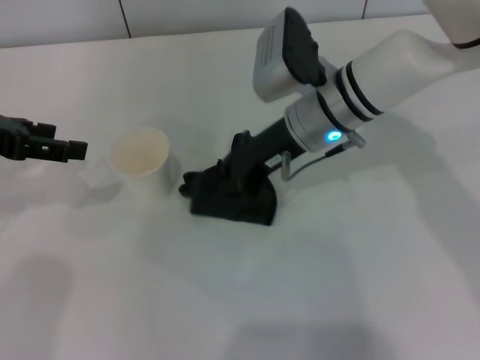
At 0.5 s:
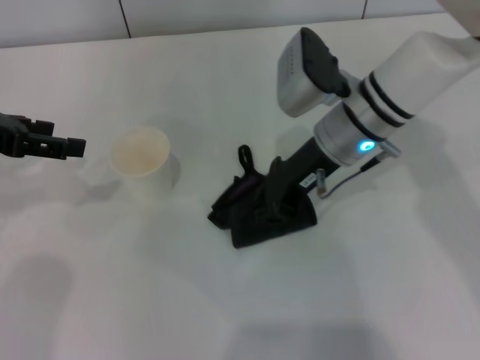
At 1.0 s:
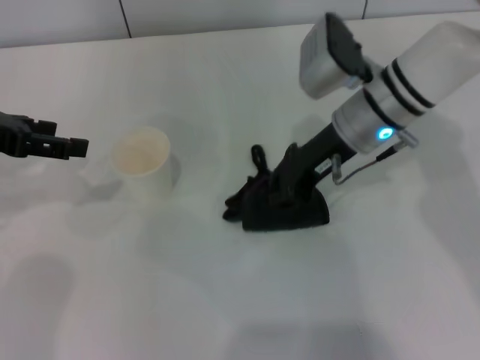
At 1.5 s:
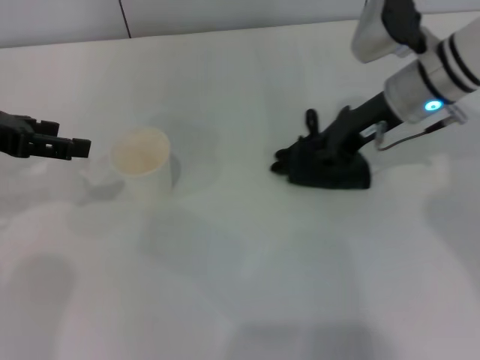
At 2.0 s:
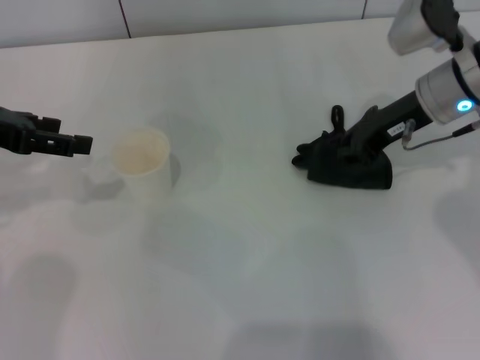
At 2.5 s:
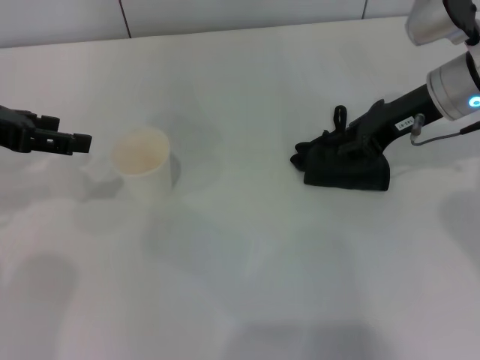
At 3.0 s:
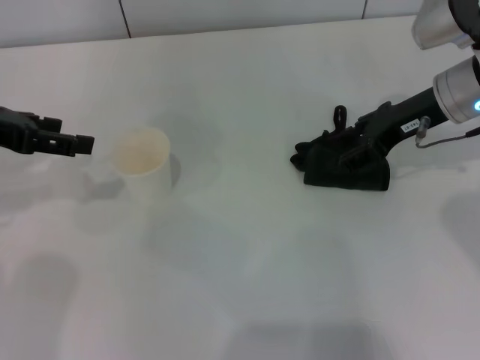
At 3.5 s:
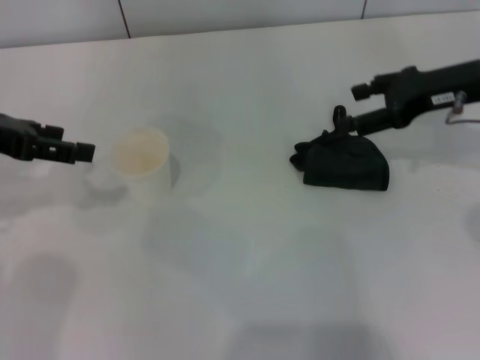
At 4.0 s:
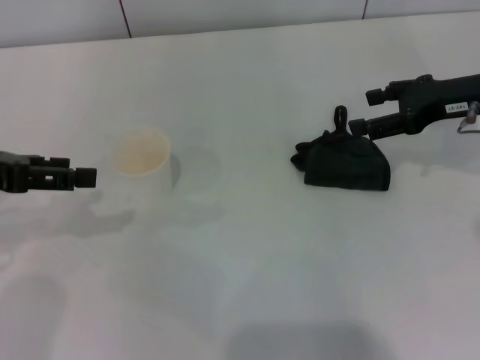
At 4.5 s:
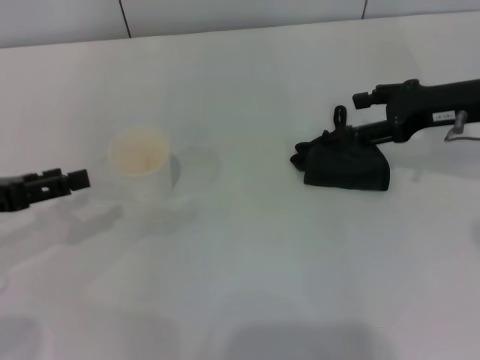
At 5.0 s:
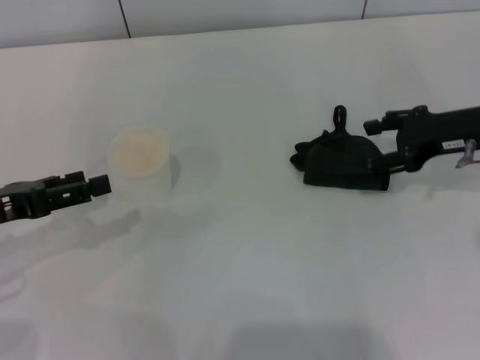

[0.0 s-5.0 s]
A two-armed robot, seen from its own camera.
Step, 2.0 to 3.5 s: Place the rag on the table with the right gripper.
0.0 to 2.5 s: The right gripper is displaced to the right by some 15 cm.
2.5 to 5.0 s: The left gripper goes about 10 cm downward and backward, while the right gripper goes approximately 10 cm to the right and backward, and opens up.

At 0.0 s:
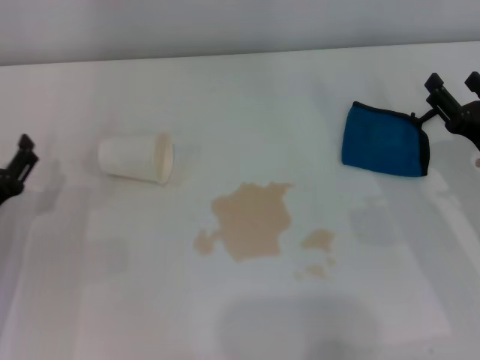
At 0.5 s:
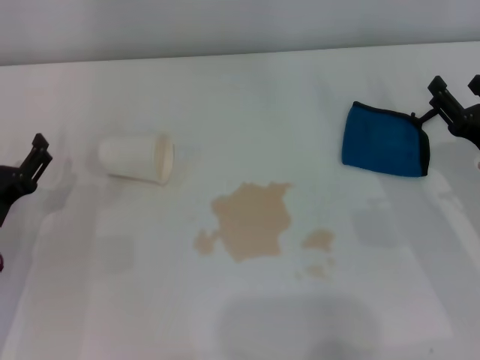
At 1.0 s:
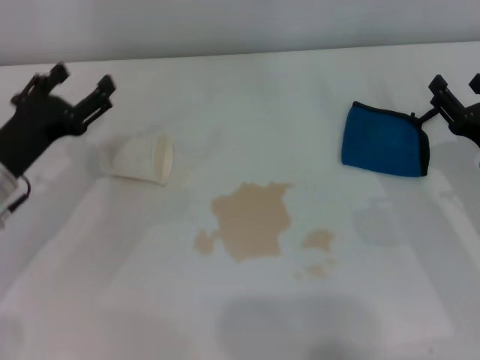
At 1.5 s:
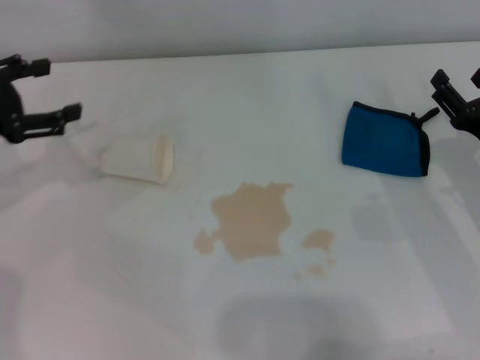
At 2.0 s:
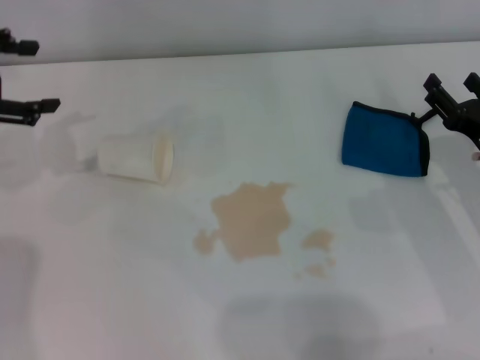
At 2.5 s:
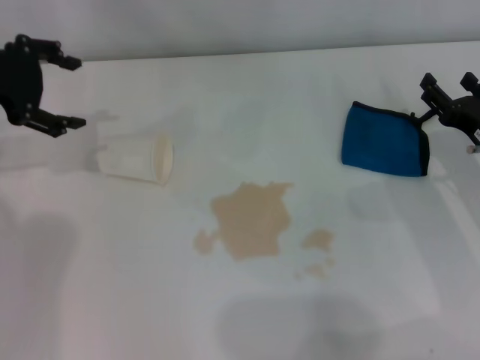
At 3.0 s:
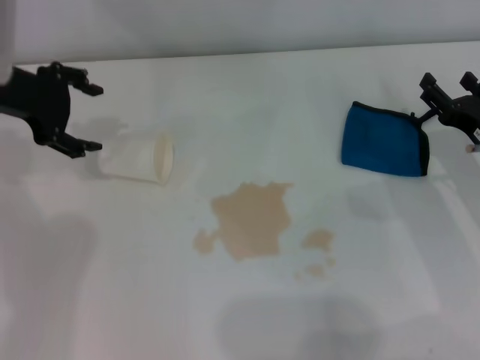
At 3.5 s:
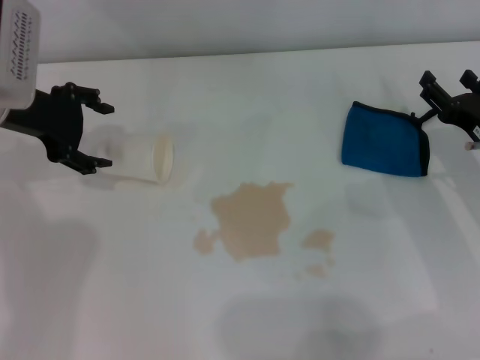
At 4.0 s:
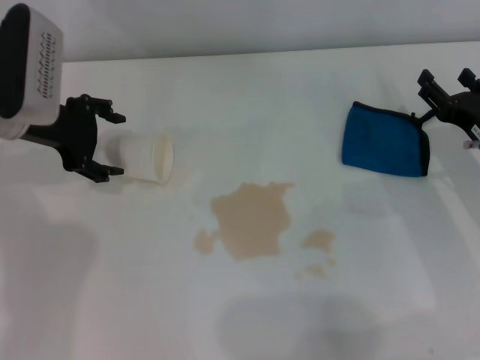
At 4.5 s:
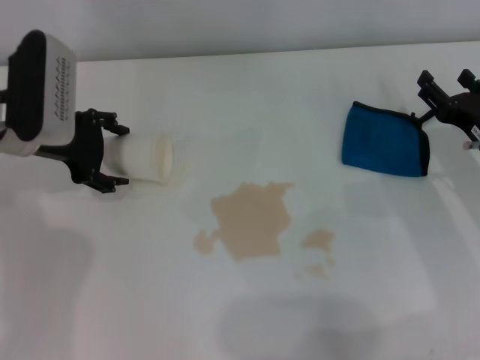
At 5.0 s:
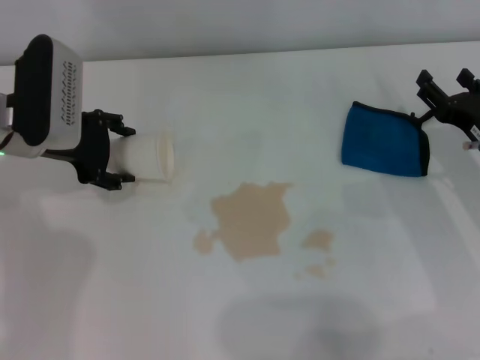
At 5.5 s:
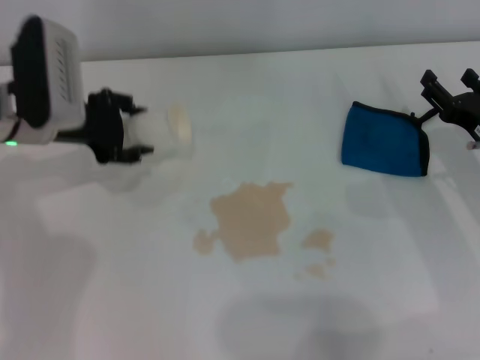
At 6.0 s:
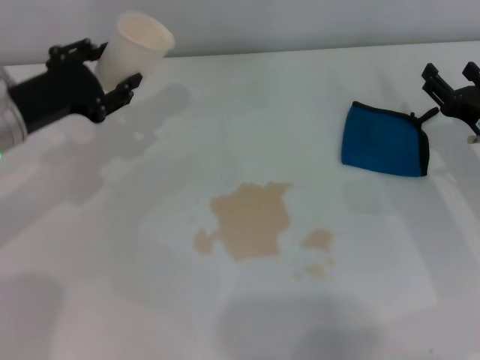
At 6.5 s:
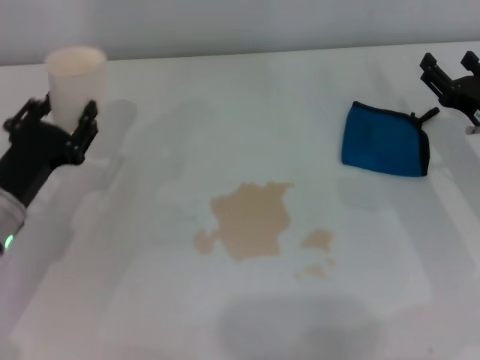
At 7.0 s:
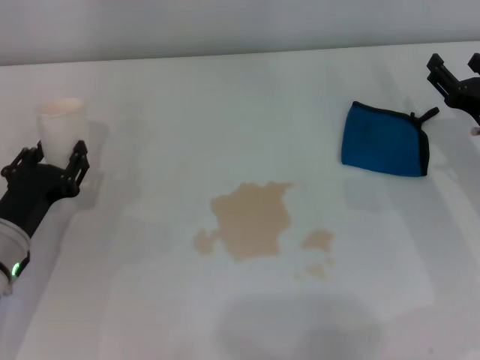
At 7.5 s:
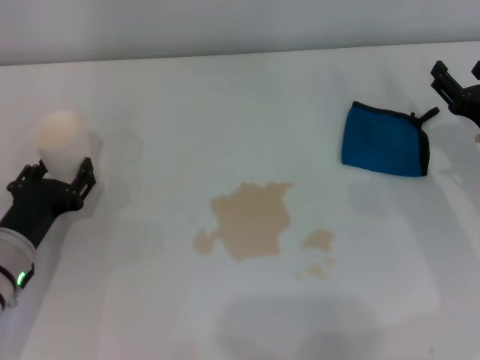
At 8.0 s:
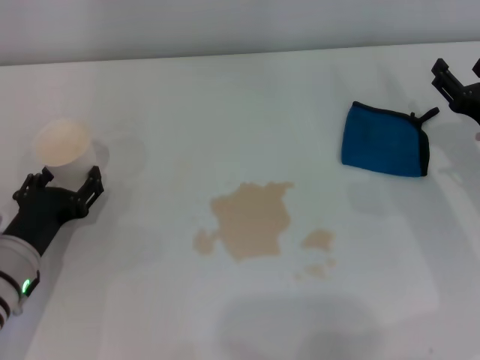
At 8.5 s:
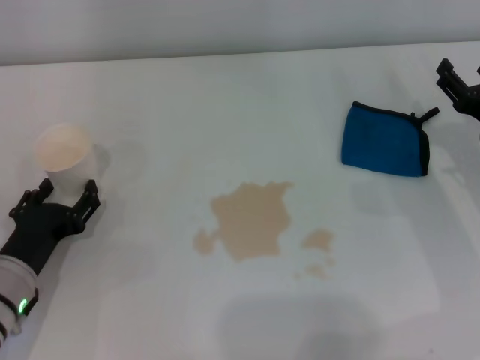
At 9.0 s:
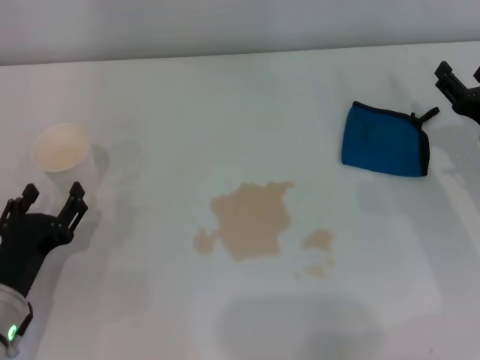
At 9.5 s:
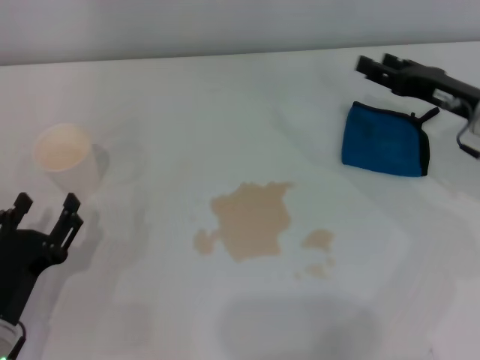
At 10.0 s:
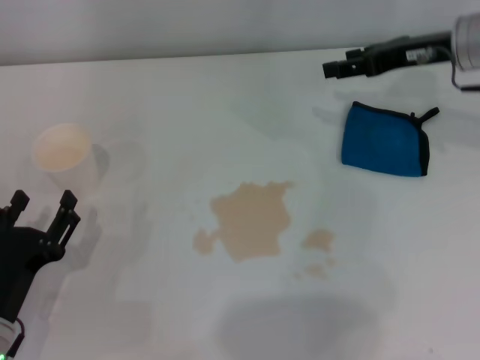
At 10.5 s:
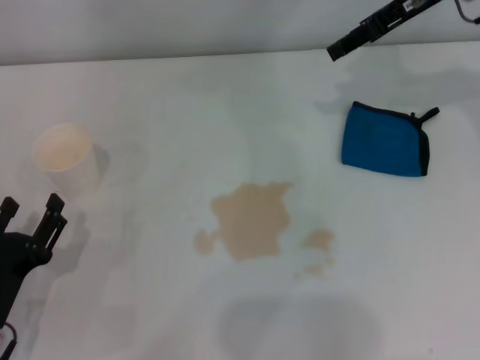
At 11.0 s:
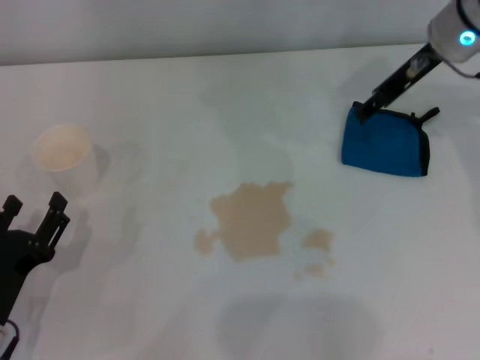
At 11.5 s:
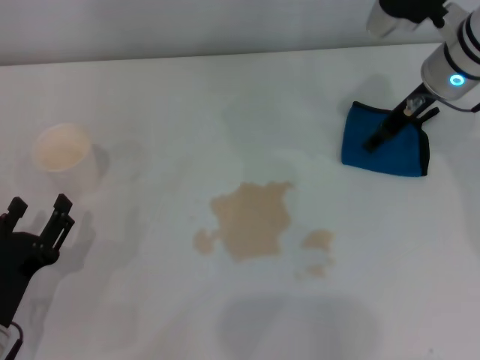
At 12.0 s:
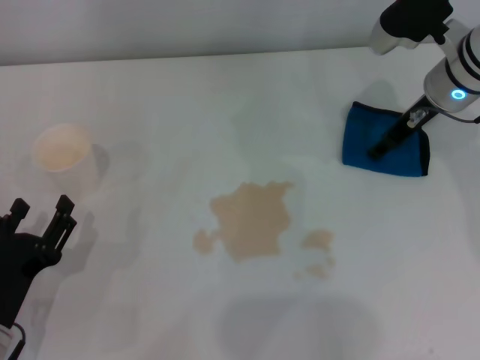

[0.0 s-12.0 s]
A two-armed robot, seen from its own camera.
Step, 0.0 to 5.0 s: Grasp the paper cup with the left gripper.
Step, 5.5 to 8.0 s: Stand the paper cup upright with the left gripper.
0.0 to 2.0 s: The left gripper goes some 20 cm upward and forward.
2.0 to 4.0 s: The left gripper heads to the right and downward, covering approximately 10 cm.
4.0 to 6.0 s: The left gripper ends up about 5 cm from where it was, and closes.
6.0 to 8.0 s: The left gripper shifts roughly 15 cm downward and backward, and opens its fingers.
8.0 to 10.0 s: The left gripper heads backward, covering about 10 cm; the right gripper heads upward and forward, covering approximately 15 cm.
10.0 to 12.0 s: The right gripper goes upward and returns, roughly 5 cm each way.

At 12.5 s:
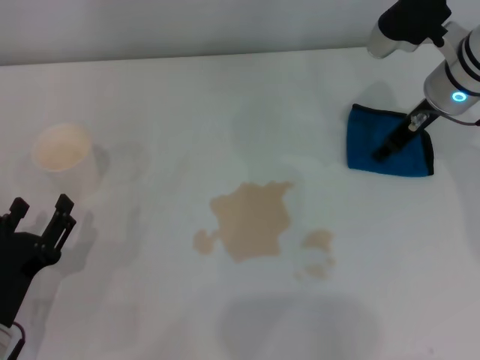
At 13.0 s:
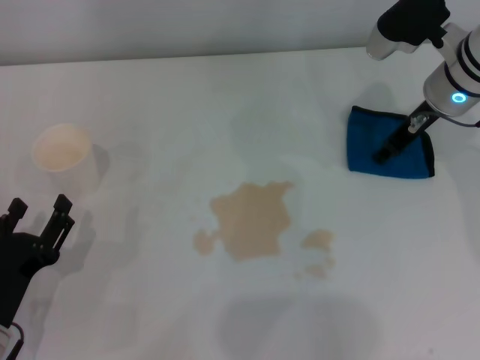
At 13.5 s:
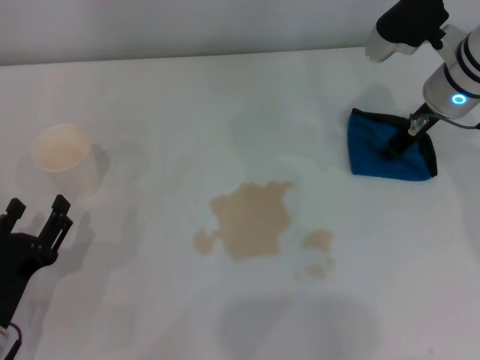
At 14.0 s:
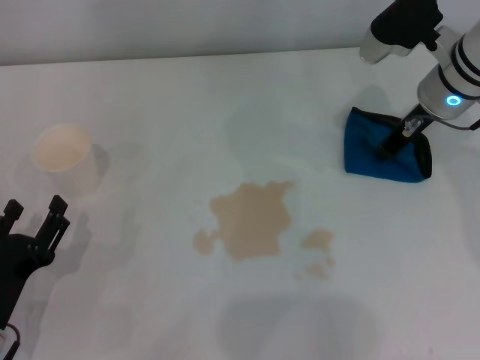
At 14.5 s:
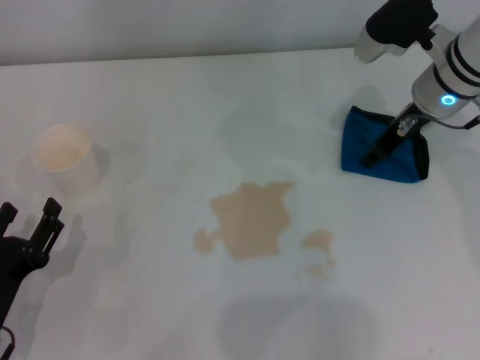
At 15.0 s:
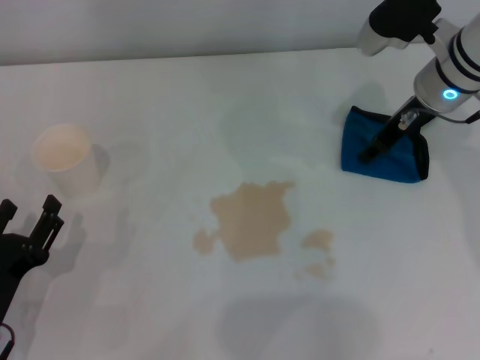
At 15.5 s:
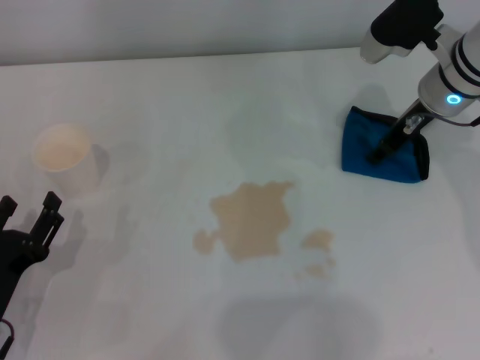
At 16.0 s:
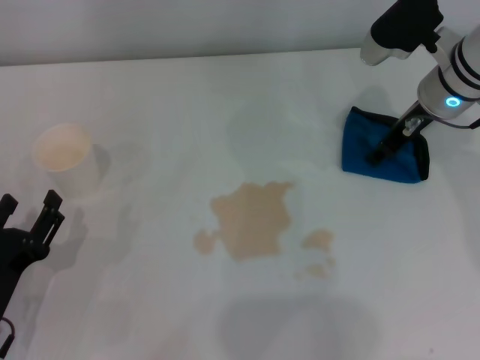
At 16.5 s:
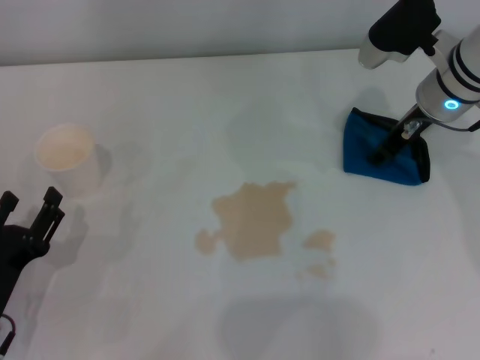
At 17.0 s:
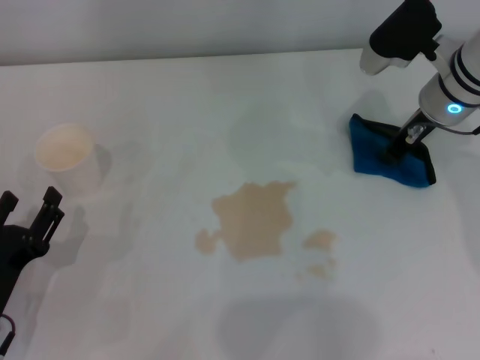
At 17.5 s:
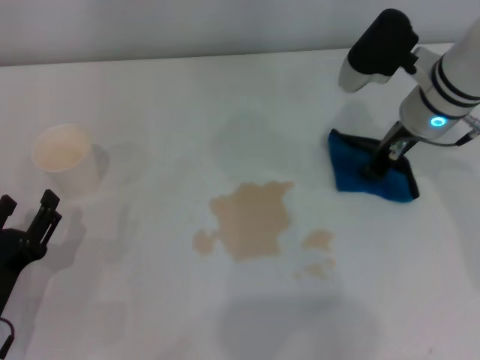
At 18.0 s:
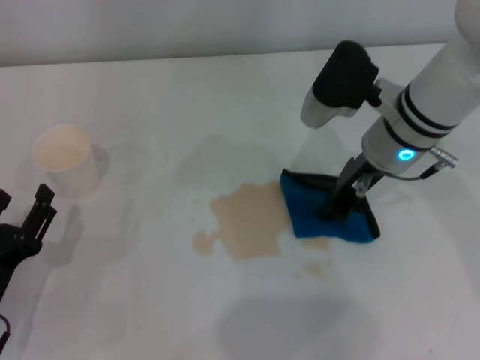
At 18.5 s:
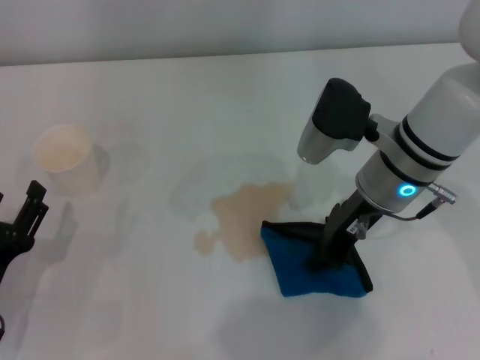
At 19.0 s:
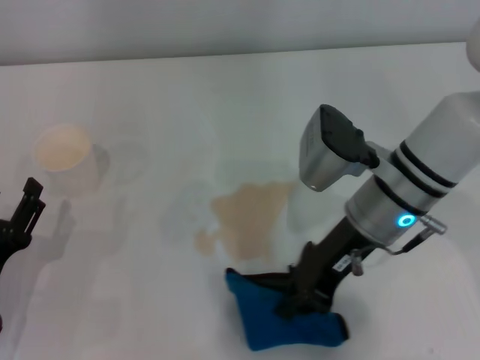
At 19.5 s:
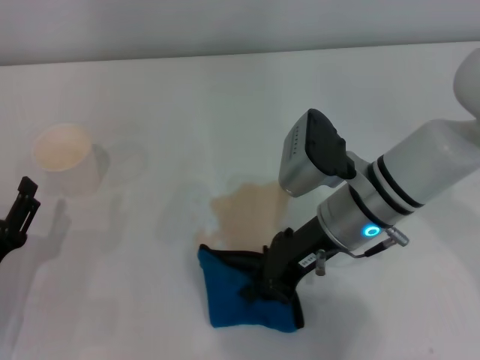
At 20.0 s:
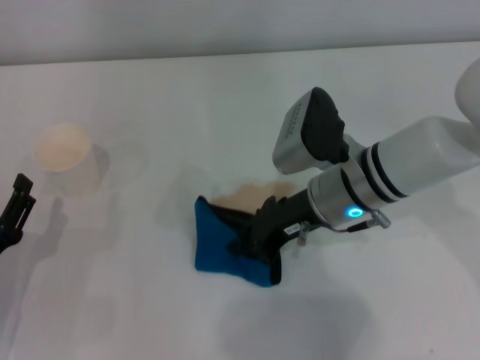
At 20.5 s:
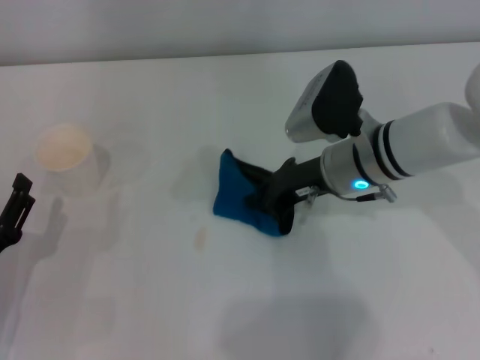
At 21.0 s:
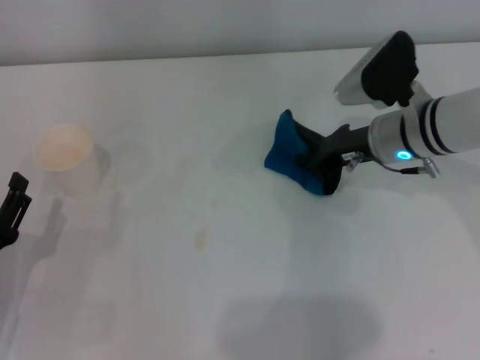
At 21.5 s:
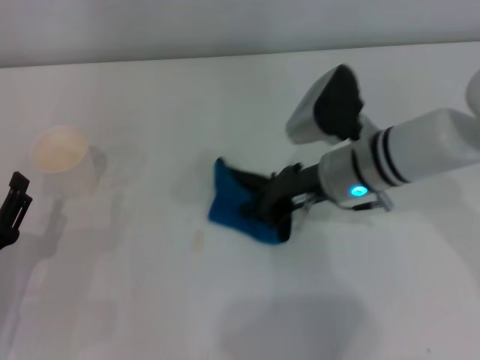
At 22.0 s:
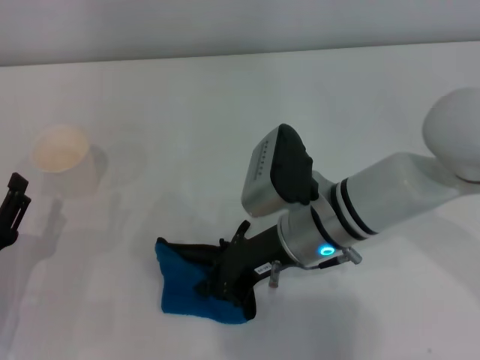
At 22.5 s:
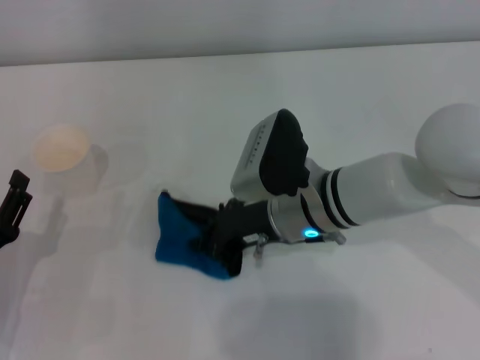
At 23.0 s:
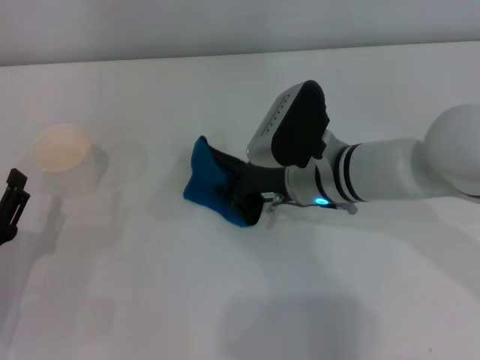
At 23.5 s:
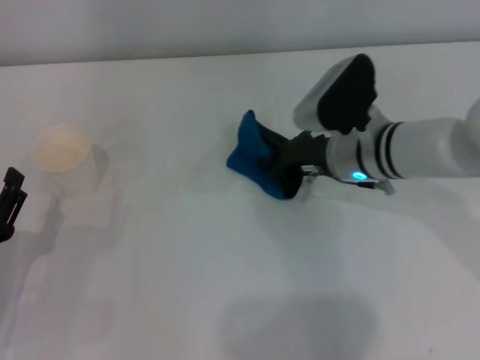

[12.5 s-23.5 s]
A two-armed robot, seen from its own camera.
Step, 12.5 to 17.0 s: Grasp the rag with the right gripper.
12.5 to 14.5 s: The right gripper closes.
14.5 to 16.0 s: The right gripper opens up.
16.0 to 18.0 s: The right gripper is displaced to the left by about 5 cm, and closes.
18.0 to 20.0 s: The right gripper changes place by about 5 cm.
20.0 to 21.5 s: The right gripper goes to the right and returns, approximately 10 cm each way.
21.5 to 23.5 s: The right gripper moves about 5 cm to the left and comes back.
